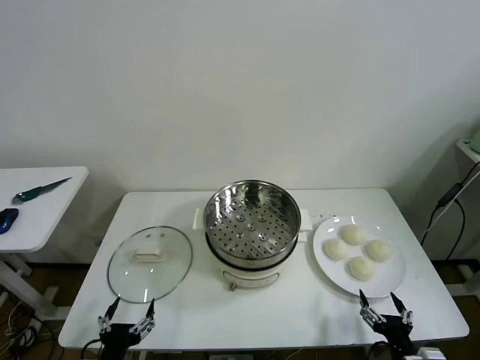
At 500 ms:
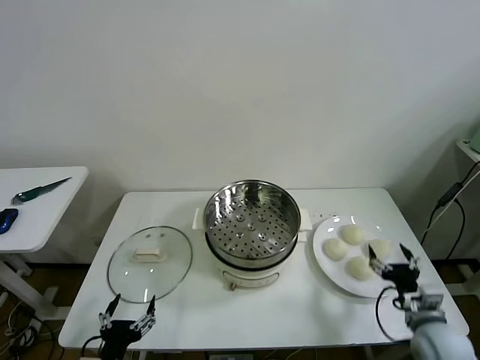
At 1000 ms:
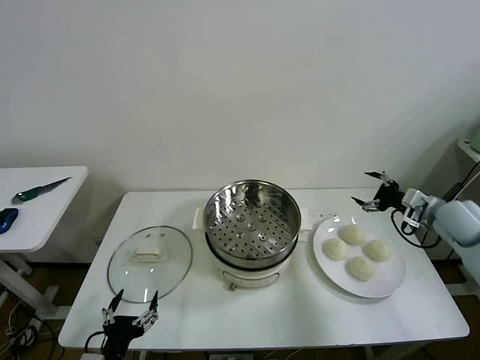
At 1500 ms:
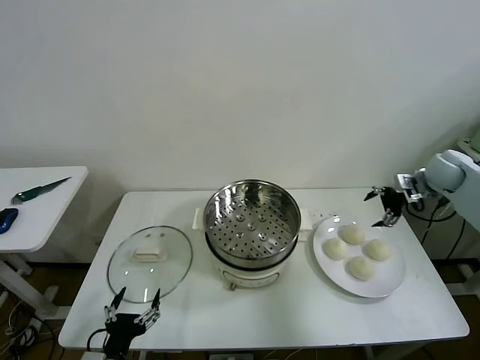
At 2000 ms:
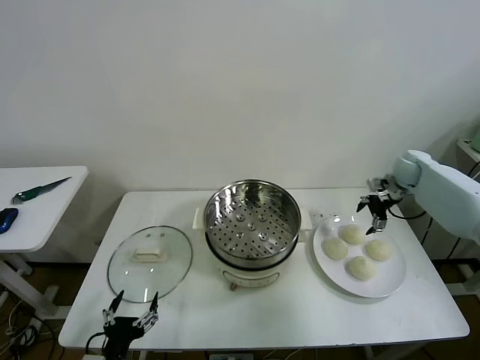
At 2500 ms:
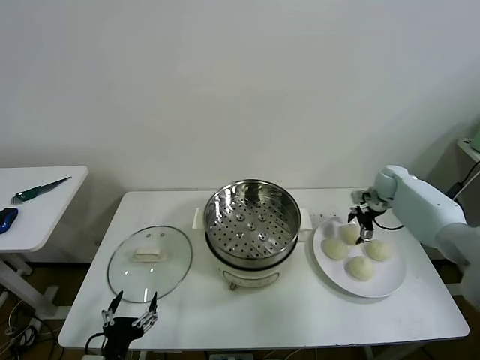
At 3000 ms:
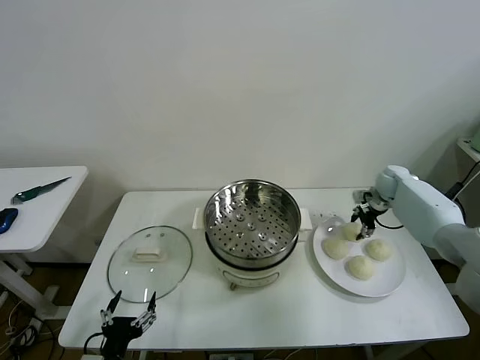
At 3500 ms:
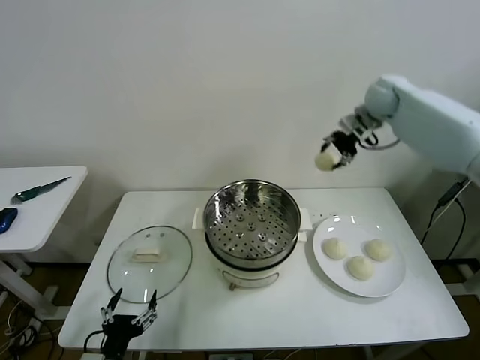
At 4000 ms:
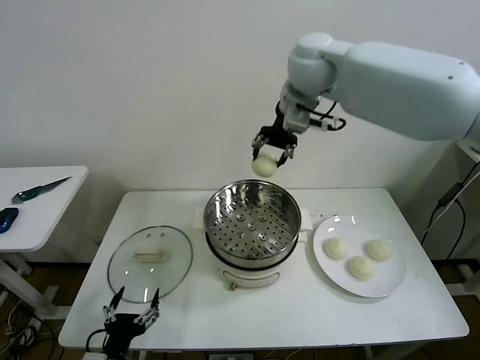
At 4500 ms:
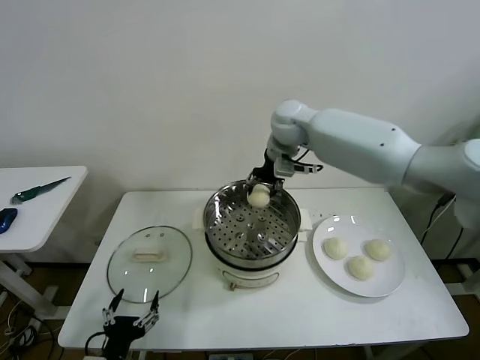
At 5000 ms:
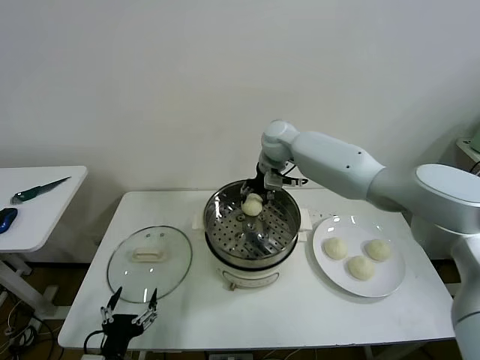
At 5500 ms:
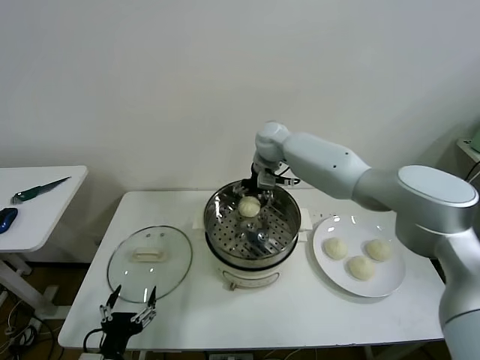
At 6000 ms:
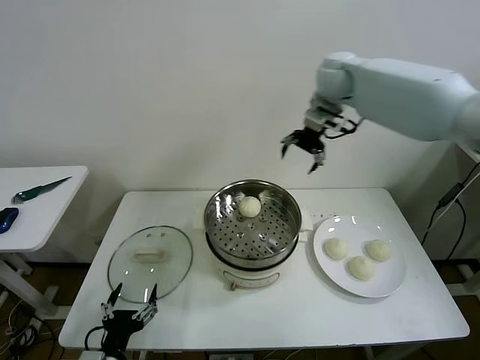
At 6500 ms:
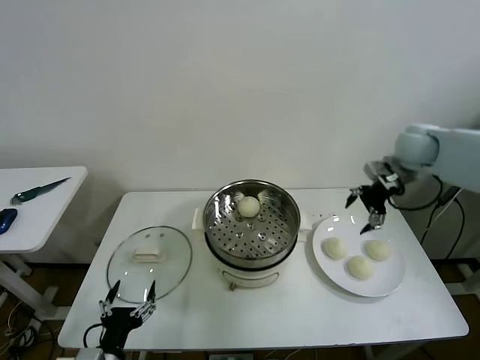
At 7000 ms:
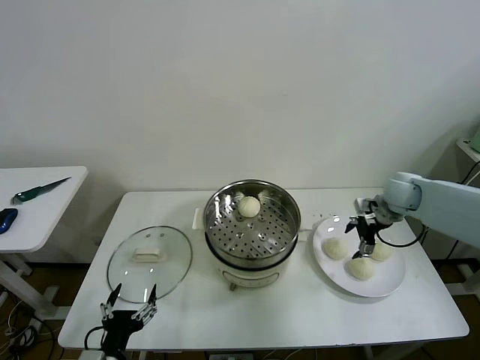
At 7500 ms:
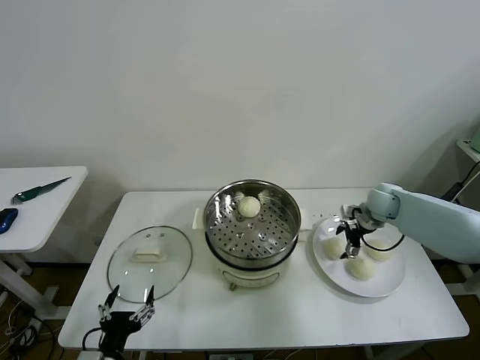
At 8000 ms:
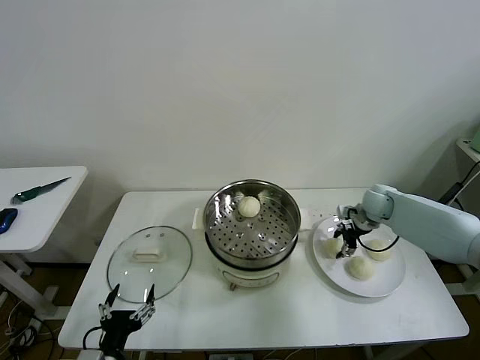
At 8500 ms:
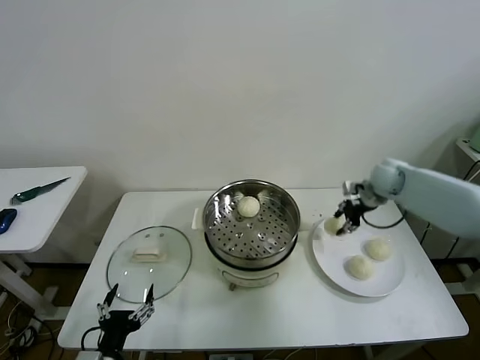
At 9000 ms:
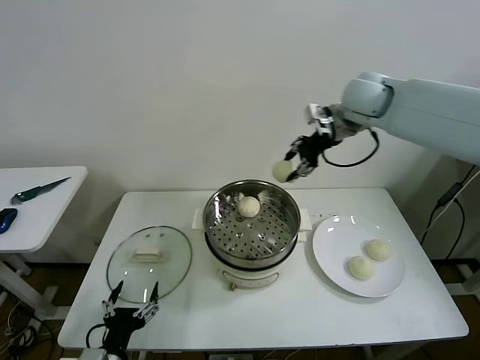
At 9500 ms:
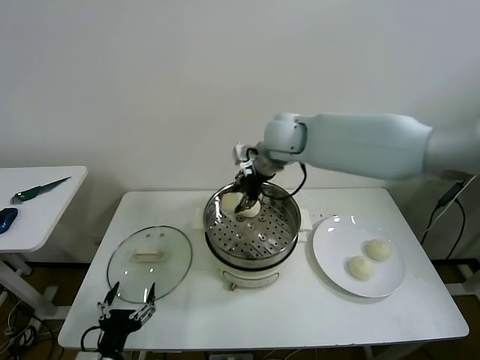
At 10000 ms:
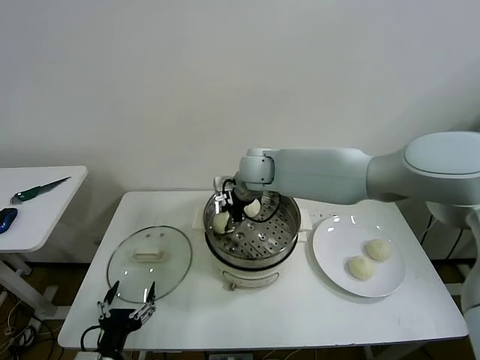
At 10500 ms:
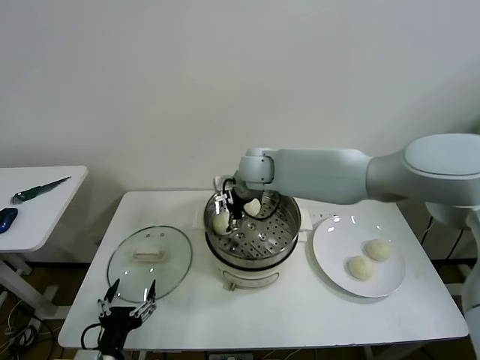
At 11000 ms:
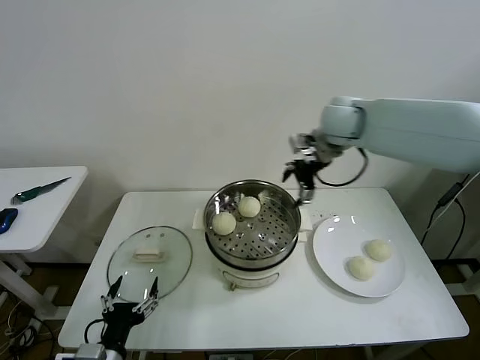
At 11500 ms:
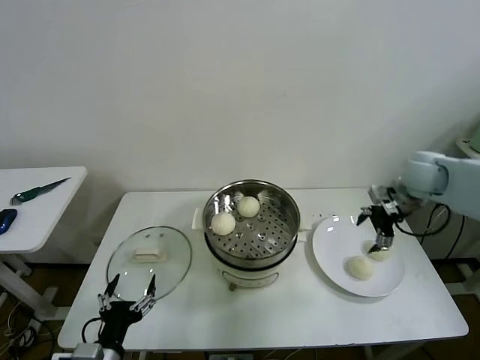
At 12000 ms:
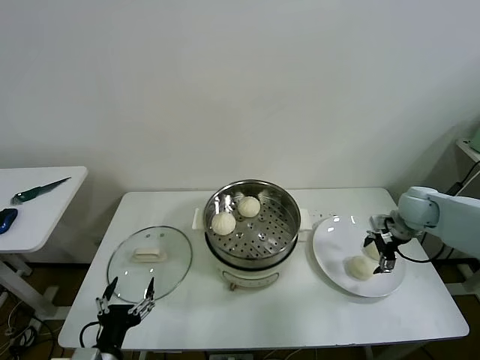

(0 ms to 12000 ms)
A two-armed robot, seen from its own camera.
Task of the whole recording: take steamed baozi put them in steamer then cover it.
Step, 0 ms - 2500 ms: Grasp the baozi in the plate with right gripper.
Step, 3000 ms - 5000 ms: Place the baozi on the steamer with right gripper.
Step, 5500 ms - 8000 ms: Grasp the baozi in the plate with right gripper.
Step, 8500 ms - 10000 ms: Place the baozi on the steamer with right gripper.
2000 ms - 4000 ms: The right gripper is displaced to the left and upward by about 40 cm, and closes.
4000 ms - 6000 ms: The right gripper heads to the right, covering approximately 15 cm, moves about 20 cm downward and comes back, and opens up.
6000 ms - 8000 ms: The right gripper travels downward by roughly 30 cm, and closes.
8000 ms - 10000 ms: The right gripper shifts approximately 35 cm to the left.
10000 ms - 12000 ms: The right gripper shifts some 40 cm to the right, and opens its fingers.

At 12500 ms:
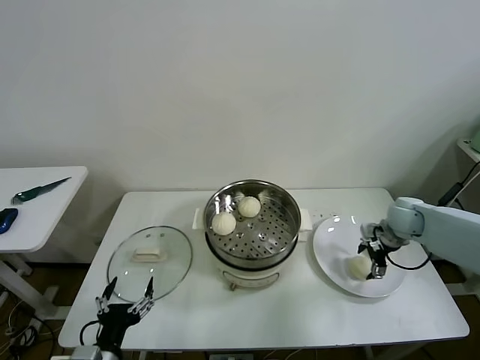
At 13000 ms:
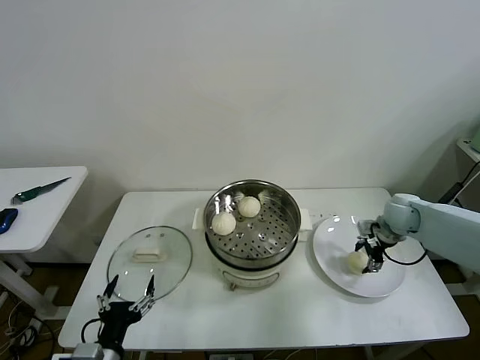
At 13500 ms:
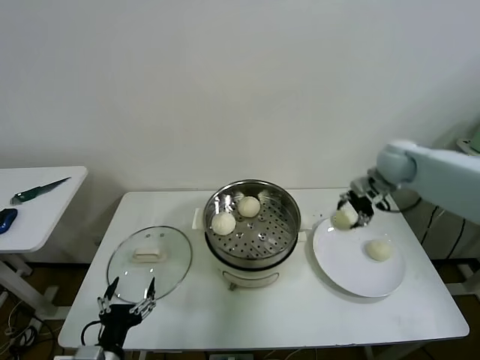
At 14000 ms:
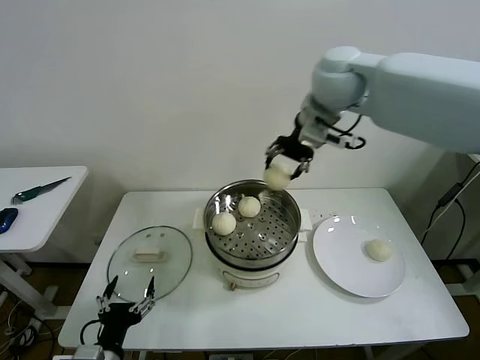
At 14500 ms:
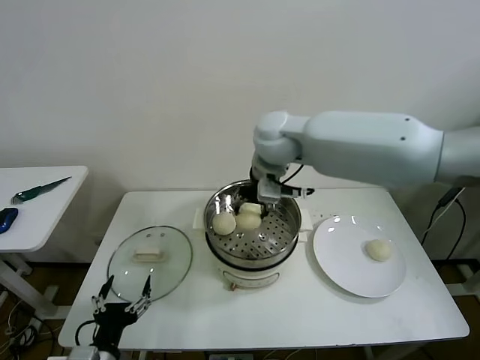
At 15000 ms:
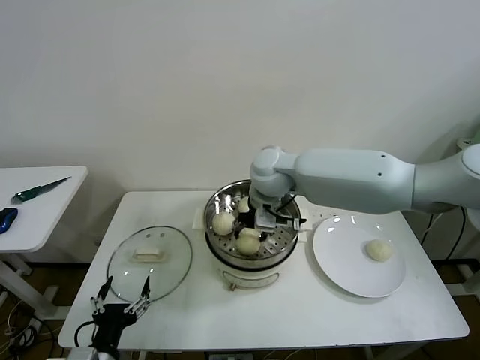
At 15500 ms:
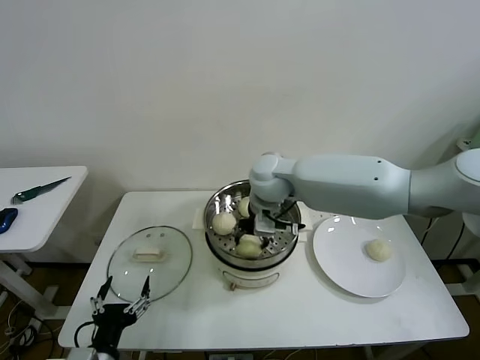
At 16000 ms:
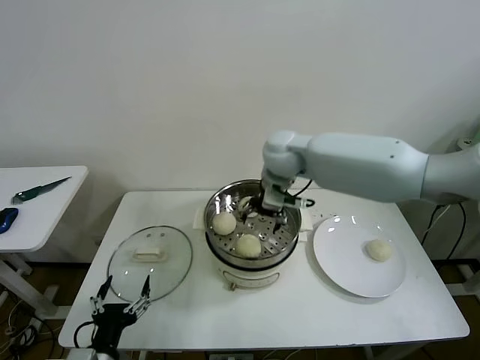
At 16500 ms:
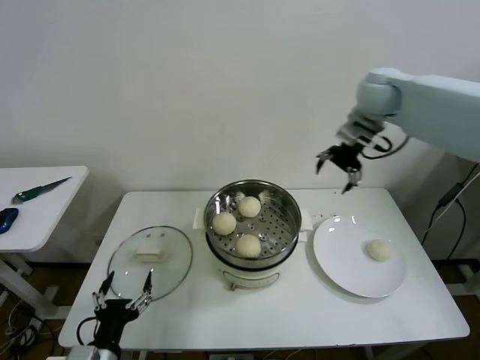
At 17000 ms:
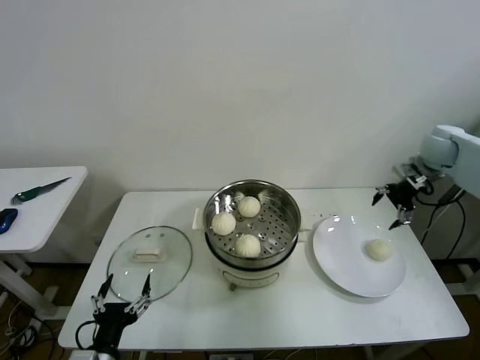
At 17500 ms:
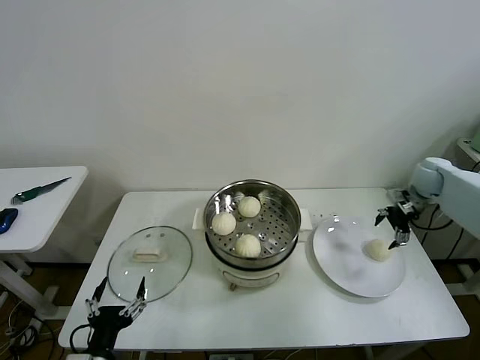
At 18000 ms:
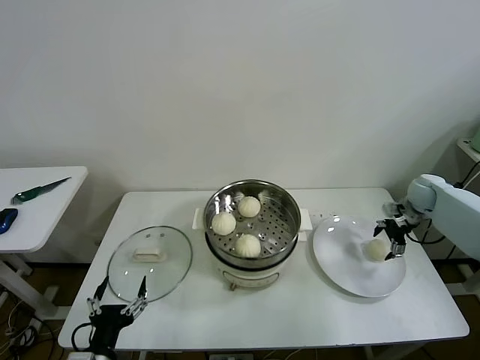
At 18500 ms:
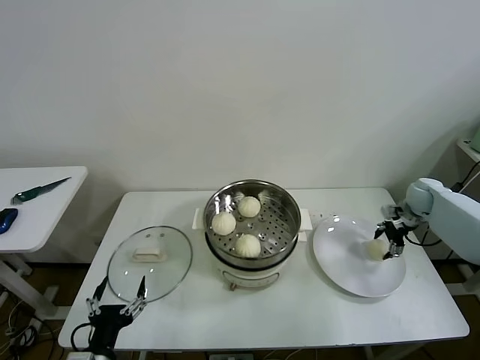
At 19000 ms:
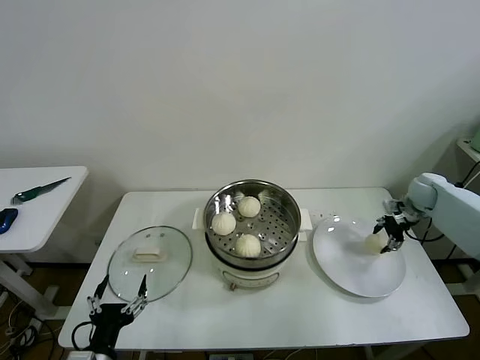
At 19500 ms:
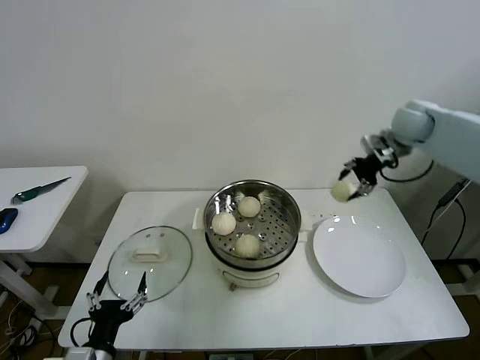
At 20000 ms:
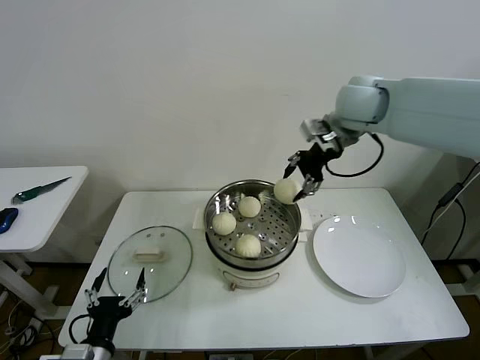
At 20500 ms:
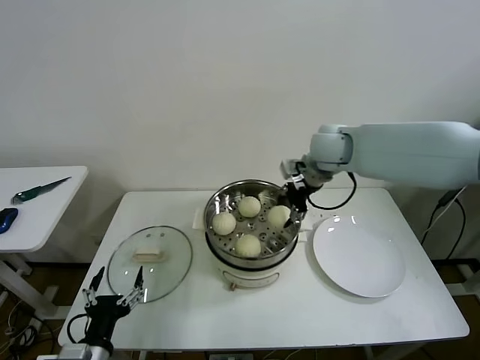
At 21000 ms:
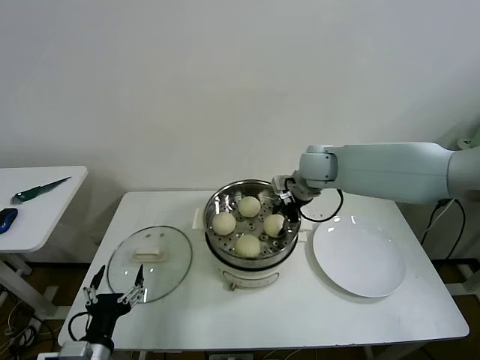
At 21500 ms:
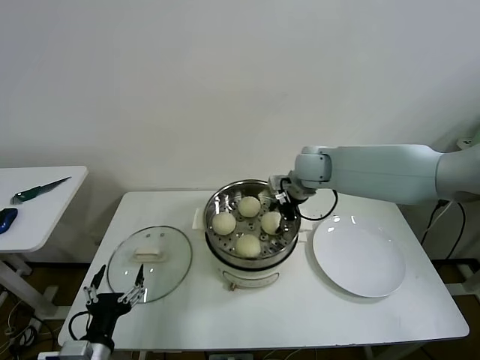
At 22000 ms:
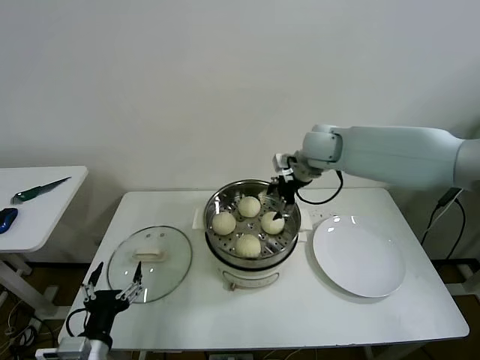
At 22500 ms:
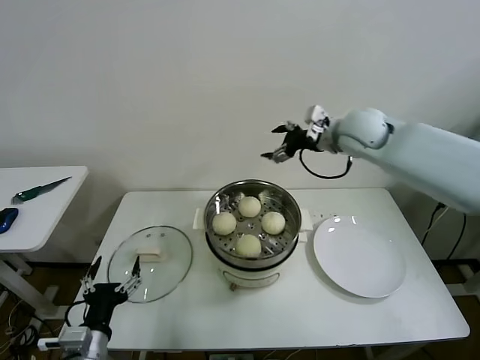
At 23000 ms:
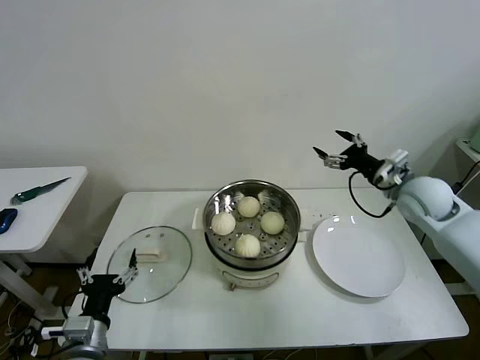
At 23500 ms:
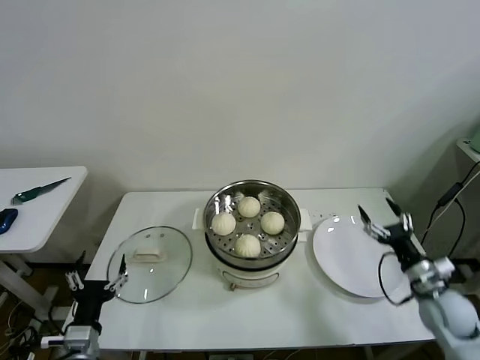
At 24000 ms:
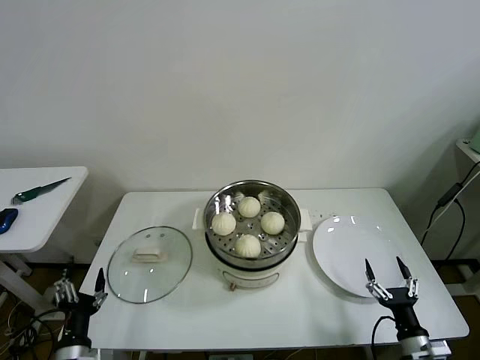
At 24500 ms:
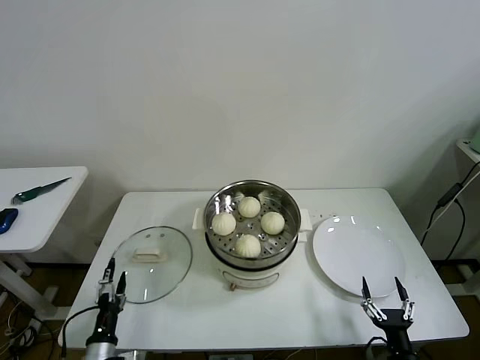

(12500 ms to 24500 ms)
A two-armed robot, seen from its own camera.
Task of the whole recording: take steamed baozi put them in steamer then cover it.
Step, 13000 ms - 15500 ms: Place the baozi on the steamer with right gripper.
Step, 16000 ms - 18500 ms: Grasp the baozi in the plate with right gripper.
Step, 19000 ms - 21500 ms: Place the baozi on the steamer with right gripper.
12500 ms - 14500 ms: The right gripper shifts about 40 cm to the left and upward, and closes its fingers.
14500 ms - 16500 ms: The right gripper heads to the right, covering approximately 25 cm, and opens its fingers.
16500 ms - 18500 ms: The right gripper travels downward and to the right by about 35 cm, and closes up.
18500 ms - 20500 ms: The right gripper goes some 35 cm to the left and upward.
20500 ms - 22500 ms: The right gripper shifts about 5 cm to the right, goes downward and returns, some 5 cm each way, and opens.
22500 ms - 24500 ms: The left gripper travels downward by about 15 cm; the right gripper goes roughly 60 cm downward and backward.

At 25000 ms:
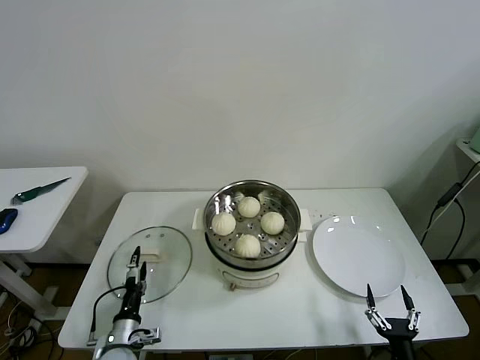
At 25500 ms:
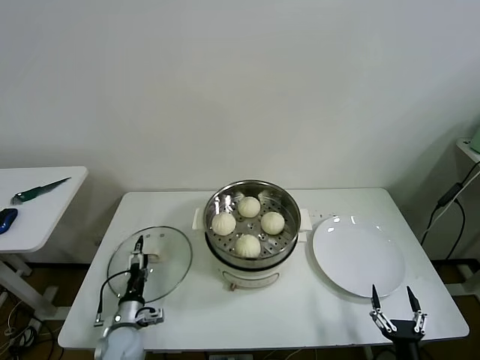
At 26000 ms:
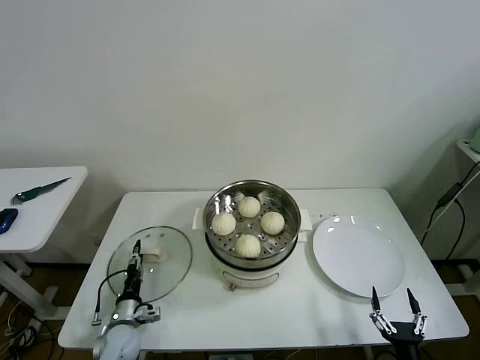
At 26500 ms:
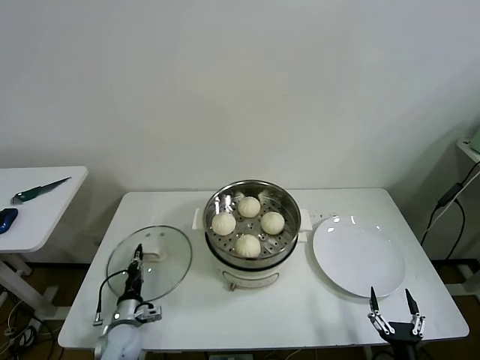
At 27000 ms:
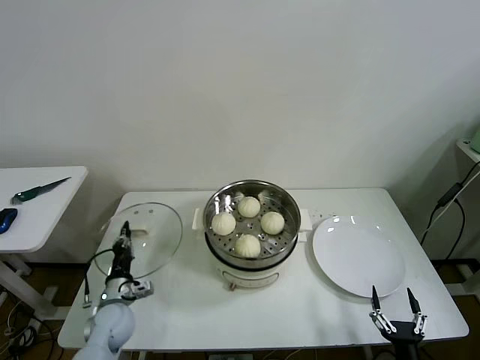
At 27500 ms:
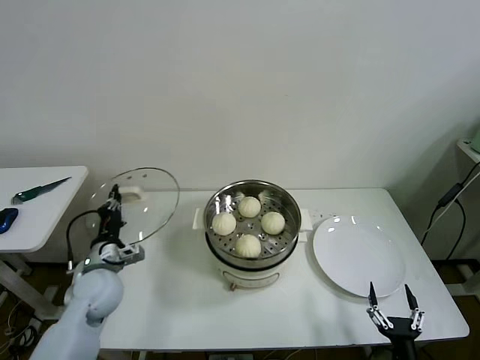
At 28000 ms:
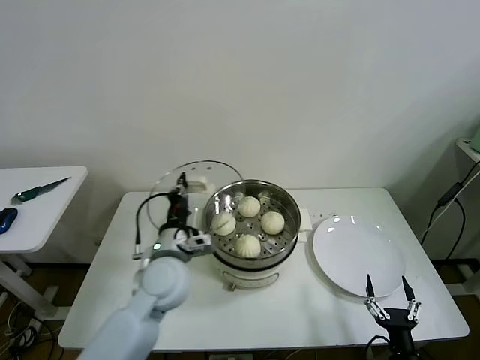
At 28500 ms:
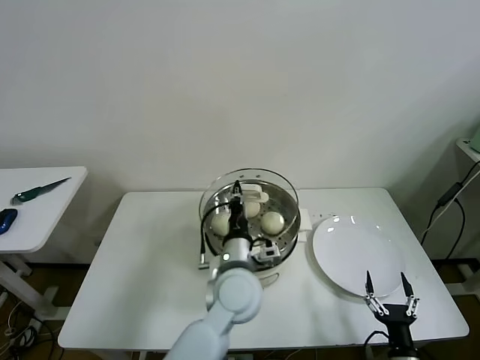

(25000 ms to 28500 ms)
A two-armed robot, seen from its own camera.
Task of the whole recording: take steamed baozi put them in steamer then cover it.
25000 ms - 27000 ms: The left gripper moves forward, roughly 10 cm, and closes.
27000 ms - 28500 ms: The left gripper heads to the right and upward, covering roughly 35 cm.
